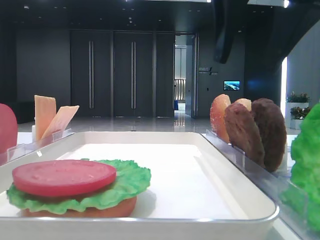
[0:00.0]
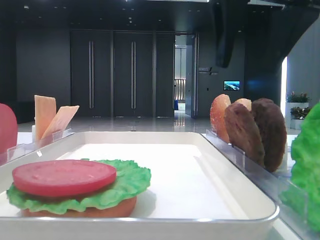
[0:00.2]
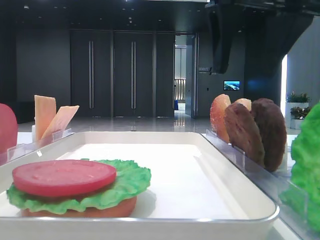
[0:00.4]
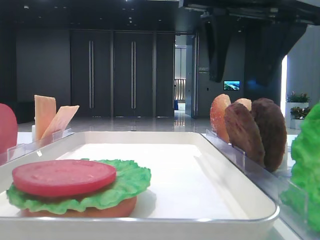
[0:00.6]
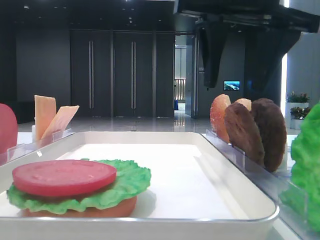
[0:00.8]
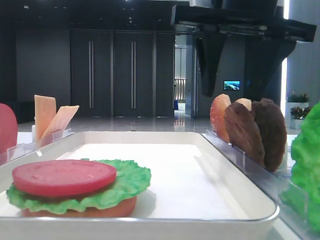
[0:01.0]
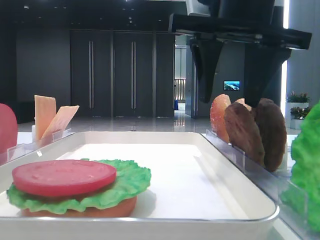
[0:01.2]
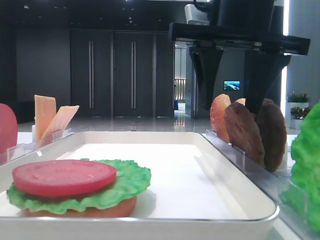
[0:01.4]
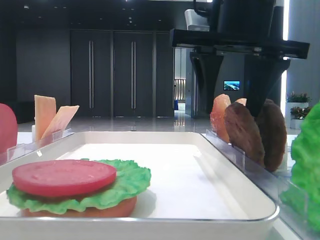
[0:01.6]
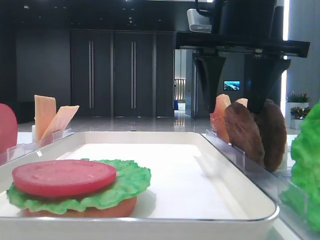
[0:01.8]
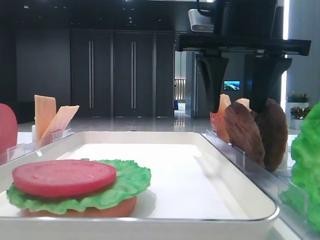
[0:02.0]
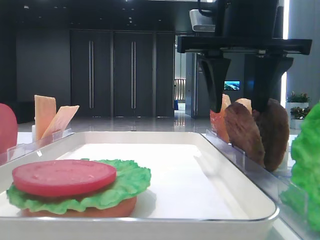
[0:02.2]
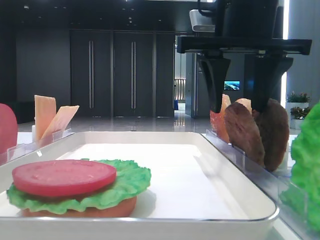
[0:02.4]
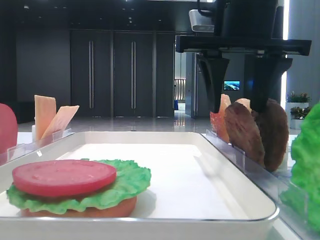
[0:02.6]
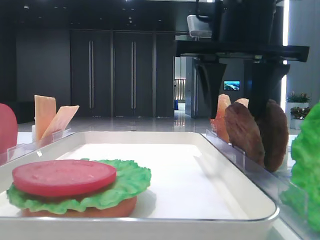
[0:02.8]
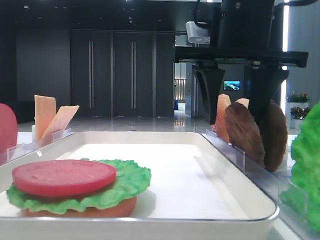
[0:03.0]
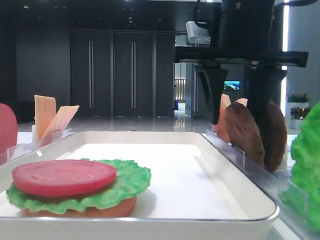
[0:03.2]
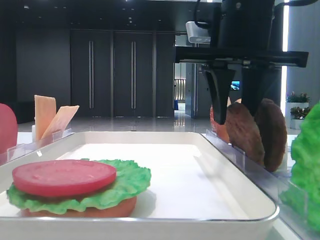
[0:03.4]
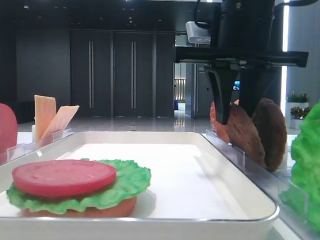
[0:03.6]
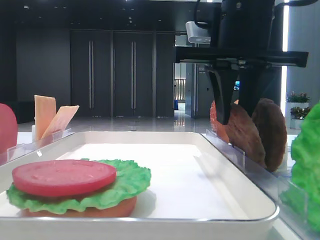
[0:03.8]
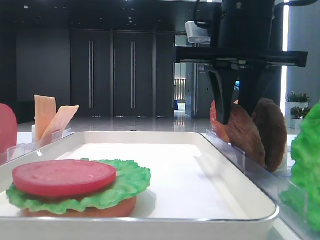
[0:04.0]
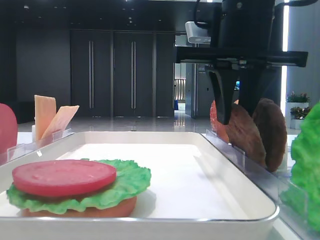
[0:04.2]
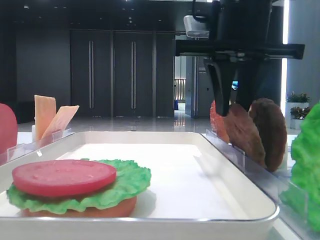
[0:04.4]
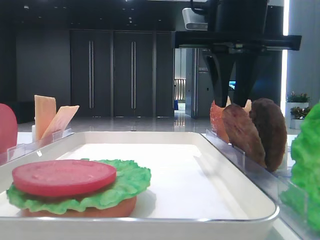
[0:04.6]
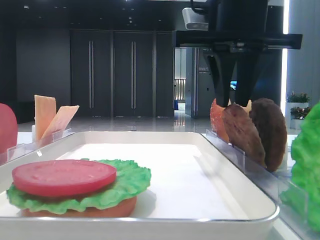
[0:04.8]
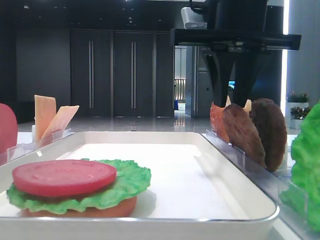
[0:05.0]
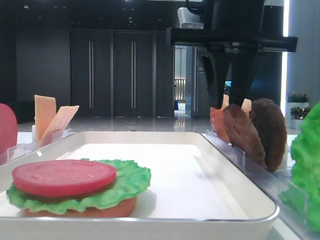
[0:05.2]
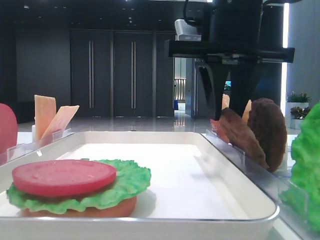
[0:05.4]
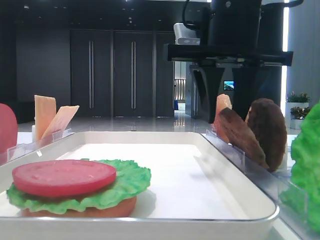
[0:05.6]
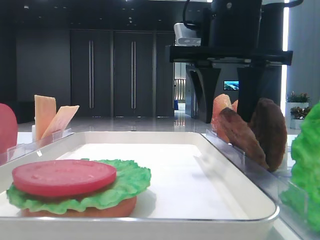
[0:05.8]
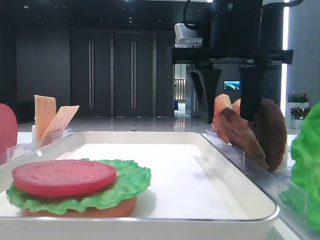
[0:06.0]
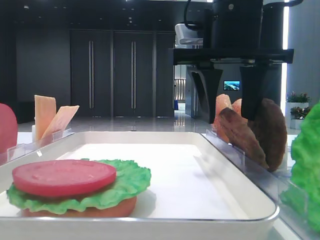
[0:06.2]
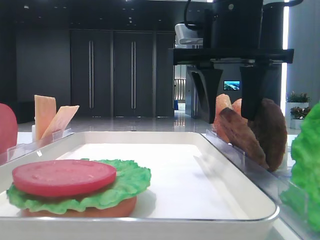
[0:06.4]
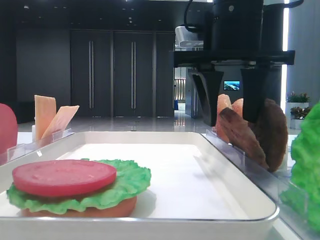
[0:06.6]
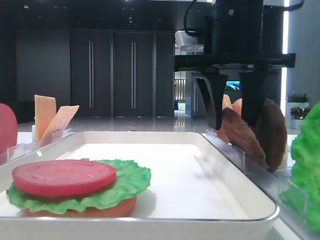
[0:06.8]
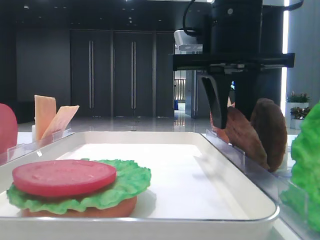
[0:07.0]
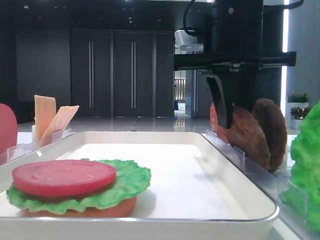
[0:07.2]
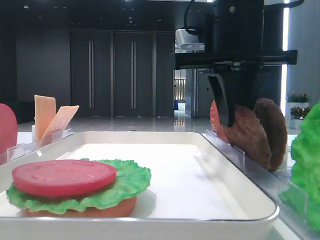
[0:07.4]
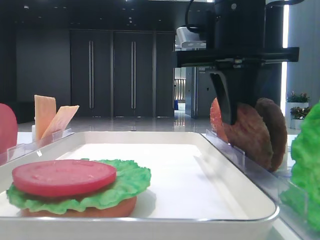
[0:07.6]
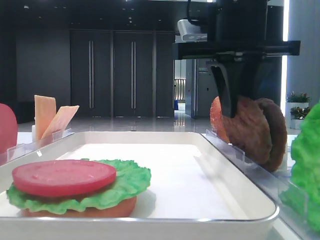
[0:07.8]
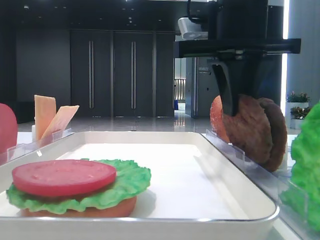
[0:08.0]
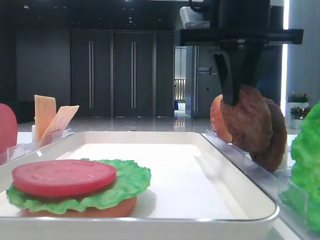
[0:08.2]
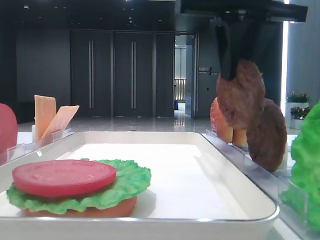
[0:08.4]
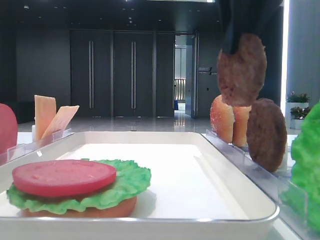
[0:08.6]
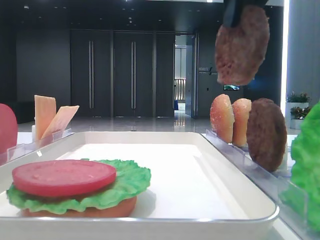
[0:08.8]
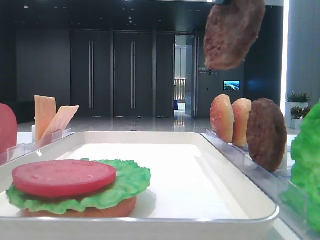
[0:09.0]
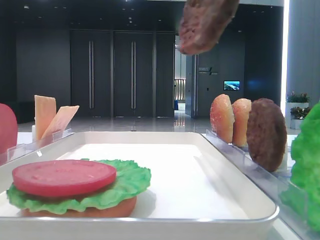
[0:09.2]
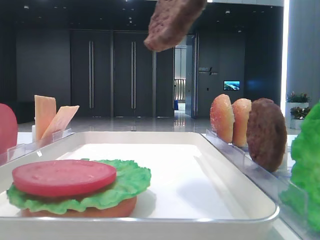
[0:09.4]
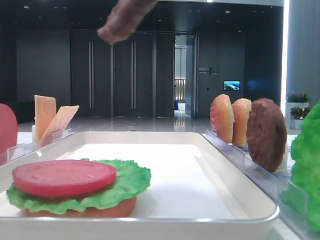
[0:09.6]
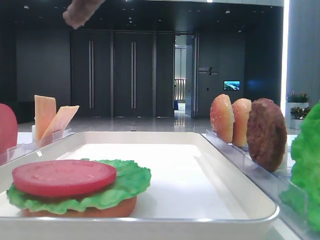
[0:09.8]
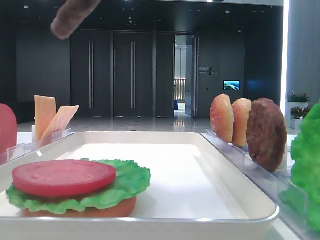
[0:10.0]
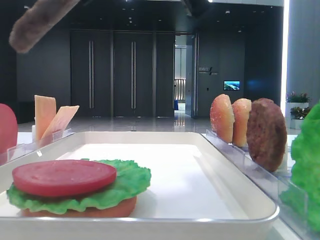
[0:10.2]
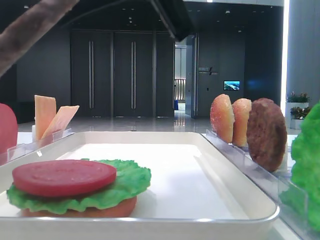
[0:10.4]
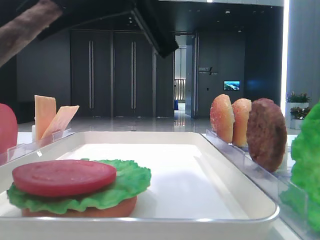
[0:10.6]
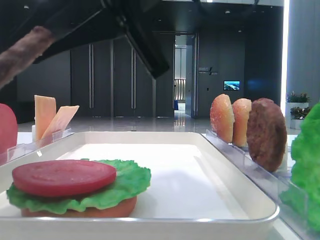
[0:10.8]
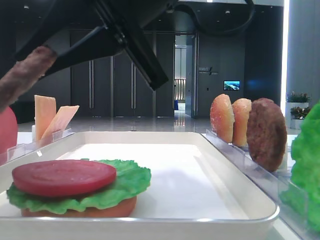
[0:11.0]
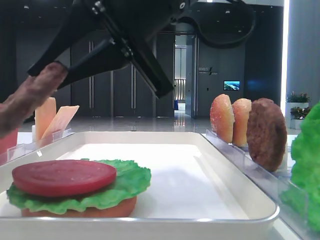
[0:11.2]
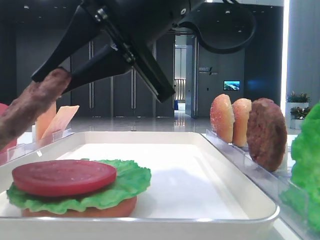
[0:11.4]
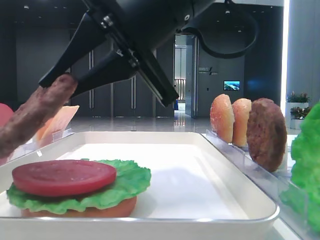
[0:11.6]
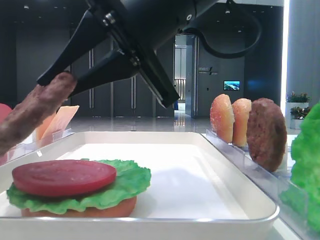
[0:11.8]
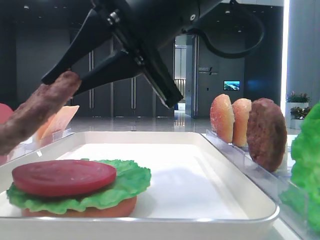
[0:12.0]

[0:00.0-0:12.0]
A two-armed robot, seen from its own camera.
Step, 0:00.0 to 0:07.4: Grab the patty with the right hand.
0:00.0 to 0:01.6: The right gripper ends up approximately 5 cm from where it was.
0:01.6 to 0:03.0: The grippers move only a little.
0:03.0 to 0:04.4: The right gripper closes its fingers.
0:04.4 to 0:06.0: The right gripper opens.
0:06.0 to 0:07.6: The right gripper closes.
0:07.6 to 0:09.0: The right gripper shifts about 15 cm upward and backward.
0:09.0 to 0:10.4: The left gripper closes its fingers. Meanwhile the right gripper travels to the left and downward by approximately 10 cm.
0:10.4 to 0:12.0: The right gripper goes approximately 5 cm downward.

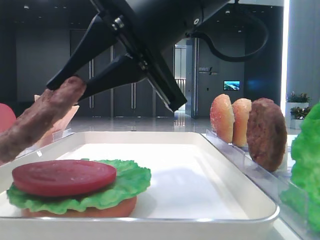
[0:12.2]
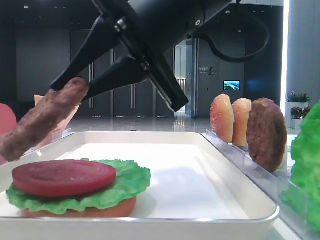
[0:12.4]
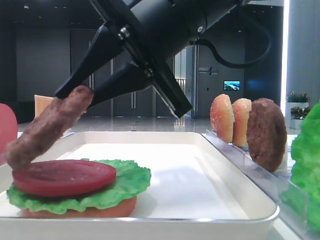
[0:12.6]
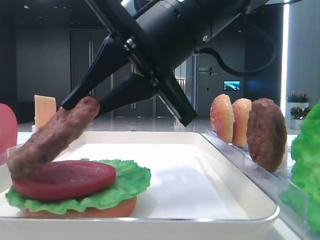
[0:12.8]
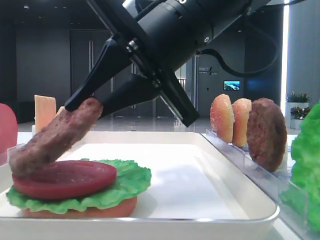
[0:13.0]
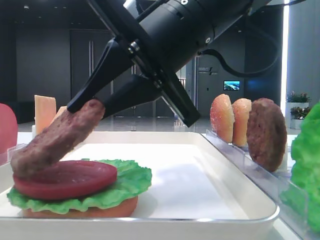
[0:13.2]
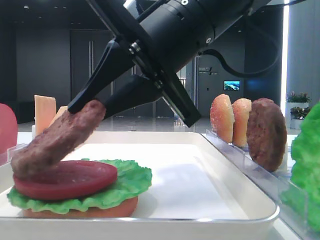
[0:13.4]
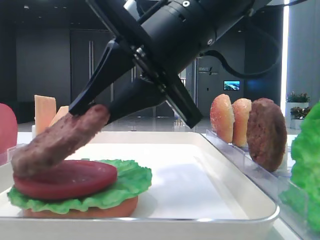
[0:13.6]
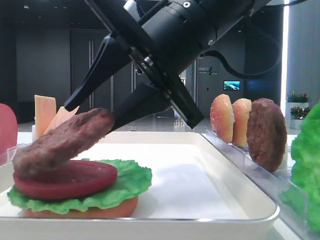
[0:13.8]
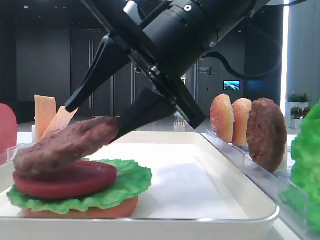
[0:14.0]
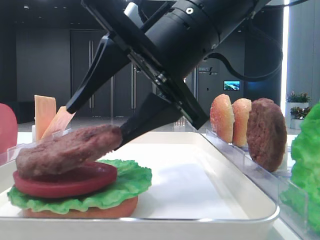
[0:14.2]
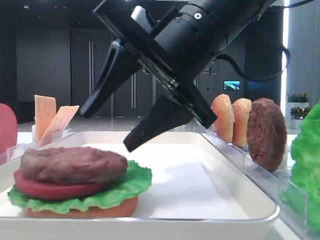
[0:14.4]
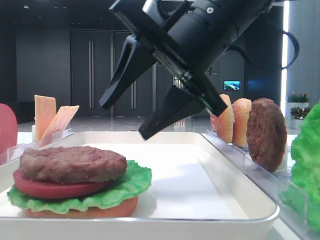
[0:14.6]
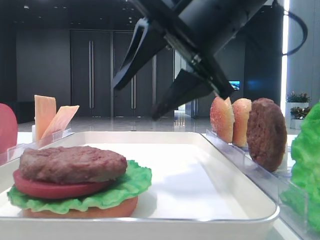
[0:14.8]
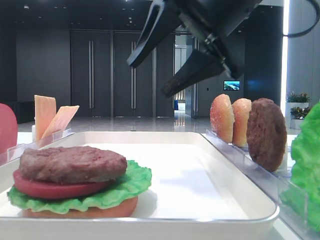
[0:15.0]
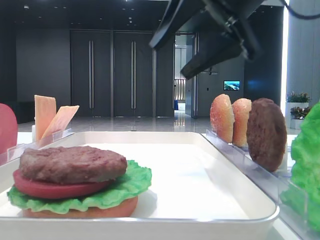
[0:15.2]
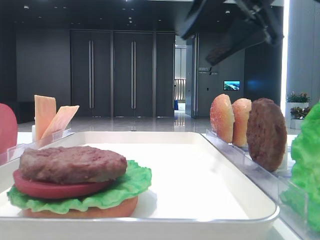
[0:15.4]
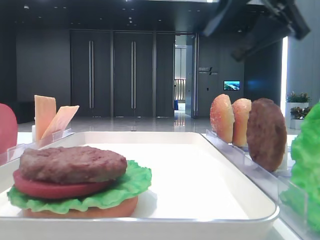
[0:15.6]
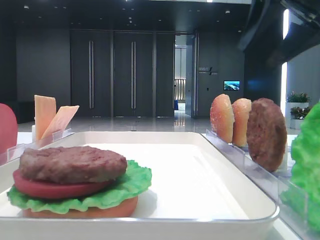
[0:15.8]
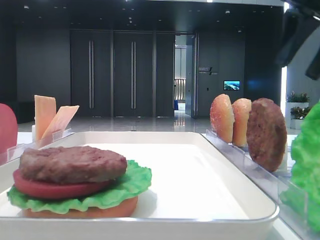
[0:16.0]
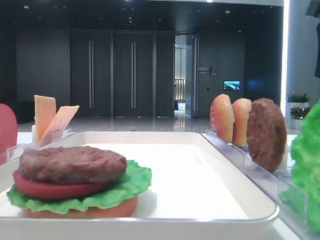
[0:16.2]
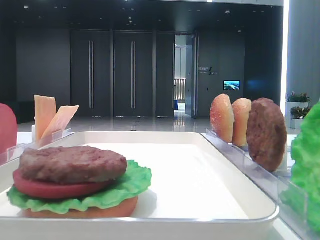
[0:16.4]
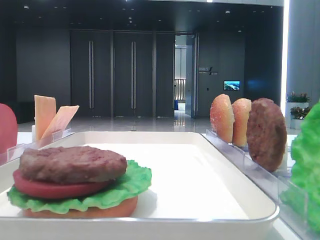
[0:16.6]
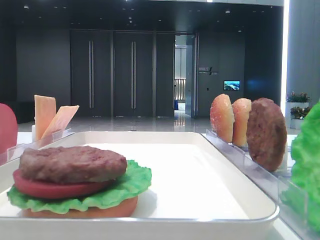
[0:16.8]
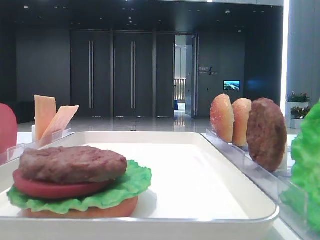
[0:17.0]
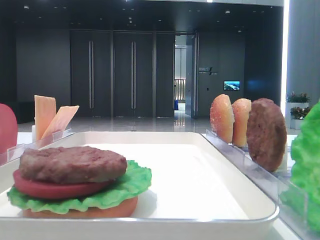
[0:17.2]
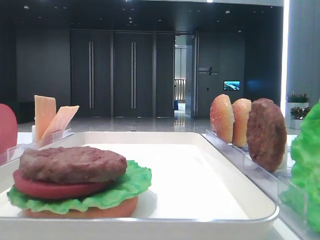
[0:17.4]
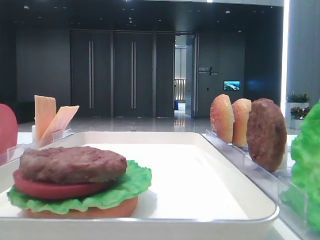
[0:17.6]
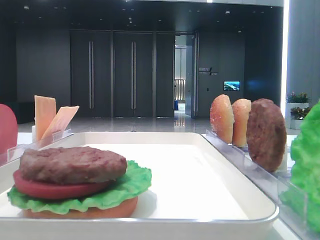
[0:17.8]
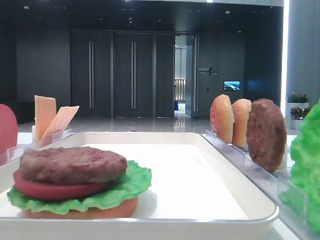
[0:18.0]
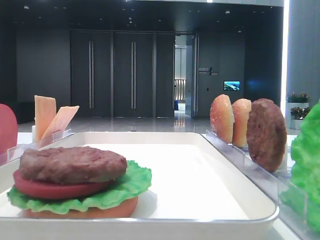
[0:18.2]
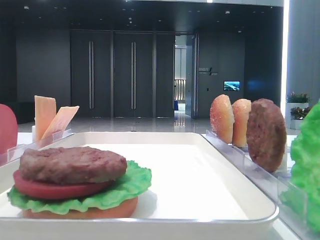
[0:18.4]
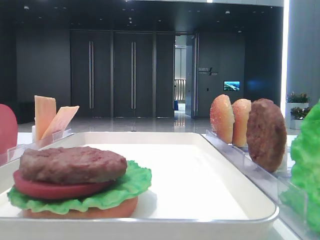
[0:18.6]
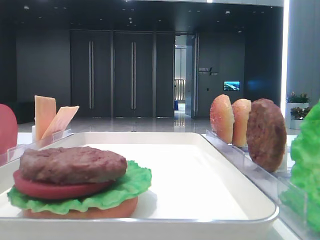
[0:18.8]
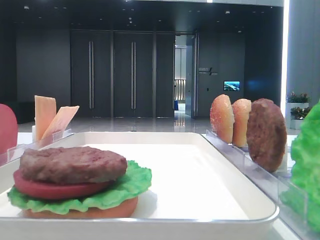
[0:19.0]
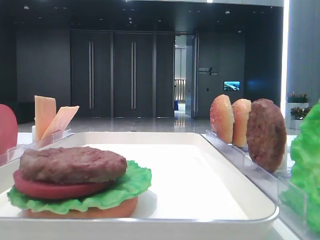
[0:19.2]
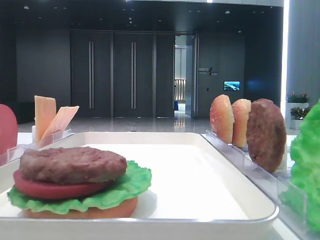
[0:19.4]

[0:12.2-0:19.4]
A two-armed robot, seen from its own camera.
Step, 0:12.2 to 0:14.2: Place the patty on the tomato slice with the right hand.
0:12.2 to 0:13.6: The grippers stay close to where they were, moving slightly.
0:13.6 to 0:15.0: The right gripper is displaced to the right by roughly 5 cm, and opens up.
0:15.0 to 0:16.6: The right gripper heads to the right, covering approximately 25 cm.

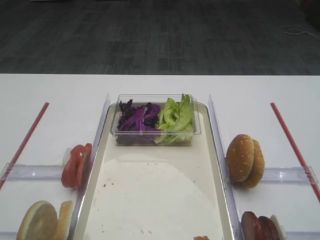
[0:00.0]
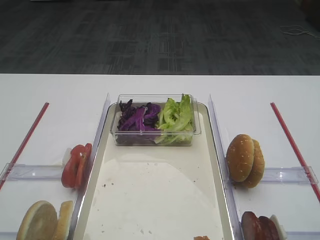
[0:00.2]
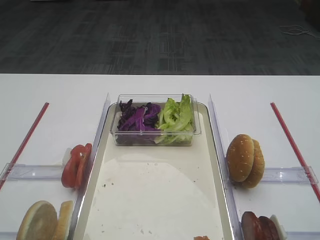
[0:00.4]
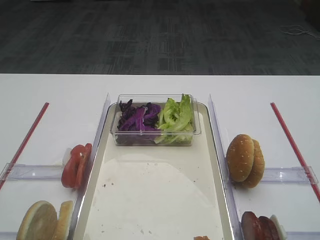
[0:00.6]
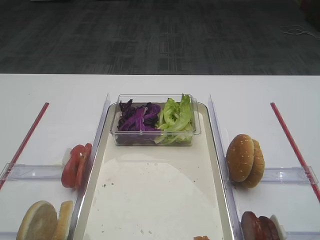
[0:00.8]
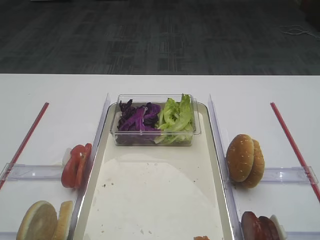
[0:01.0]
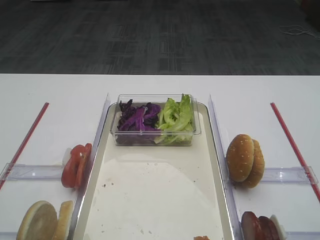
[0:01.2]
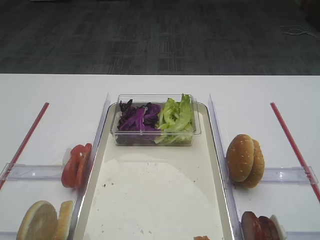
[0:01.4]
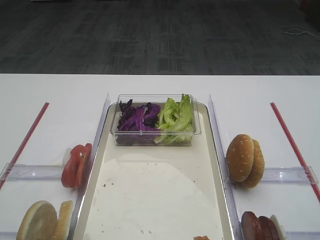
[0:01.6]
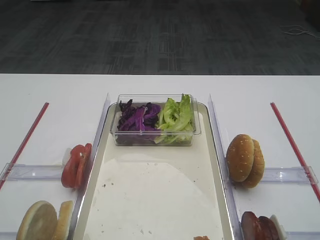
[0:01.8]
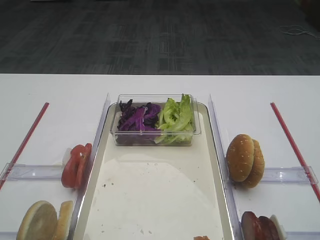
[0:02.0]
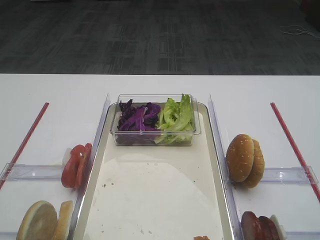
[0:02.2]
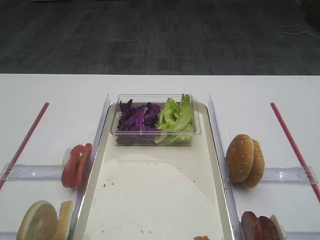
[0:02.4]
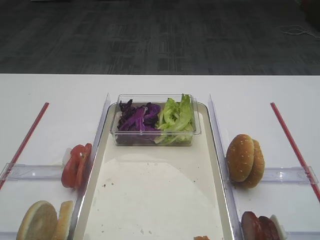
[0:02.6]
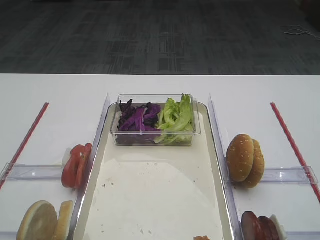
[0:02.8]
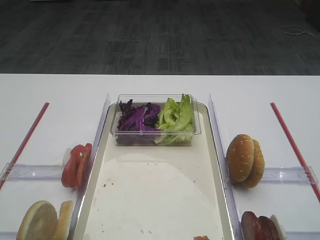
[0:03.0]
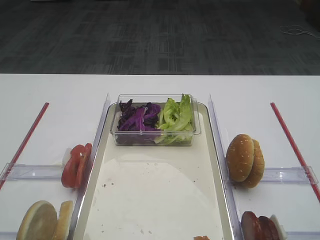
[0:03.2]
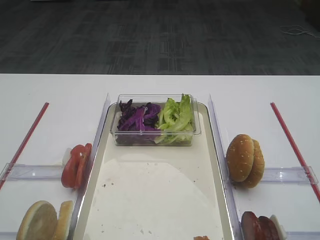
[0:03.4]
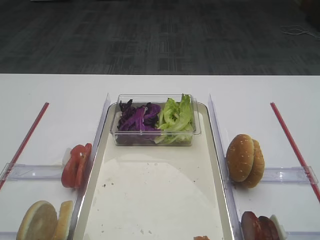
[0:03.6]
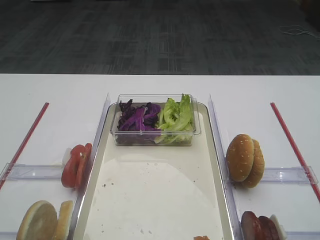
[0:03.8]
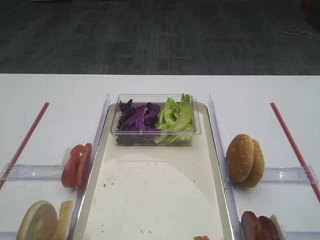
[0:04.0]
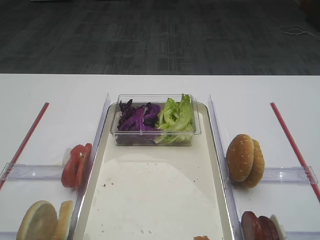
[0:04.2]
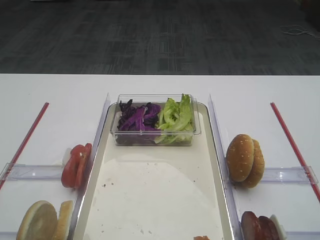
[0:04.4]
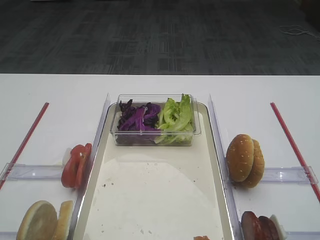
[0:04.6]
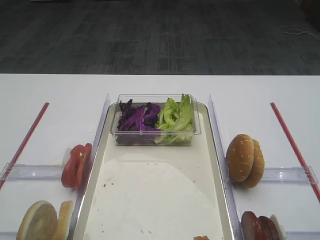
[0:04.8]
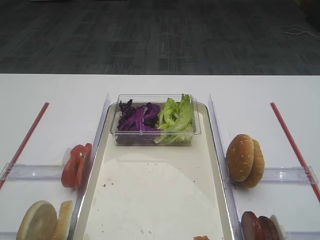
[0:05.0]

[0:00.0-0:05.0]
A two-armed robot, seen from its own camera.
0:01.6 to 0:05.0: Both grippers stay about where they are.
